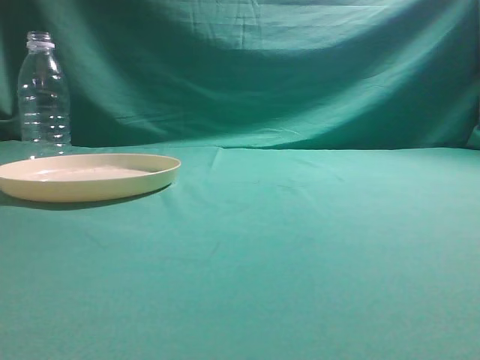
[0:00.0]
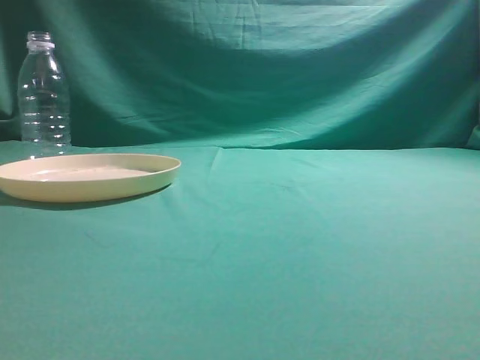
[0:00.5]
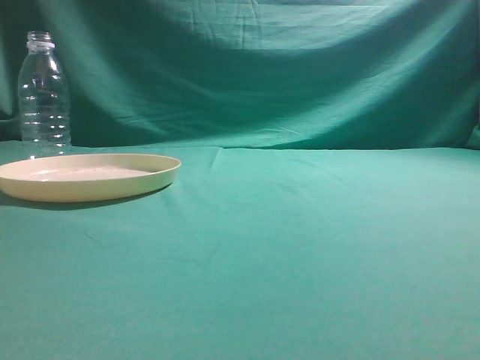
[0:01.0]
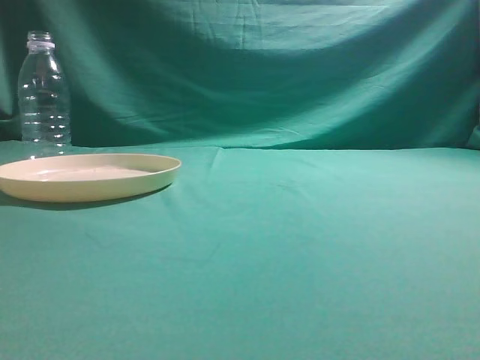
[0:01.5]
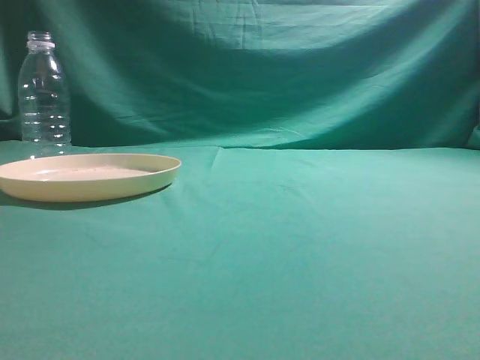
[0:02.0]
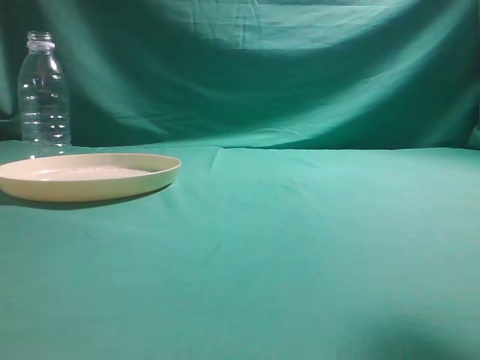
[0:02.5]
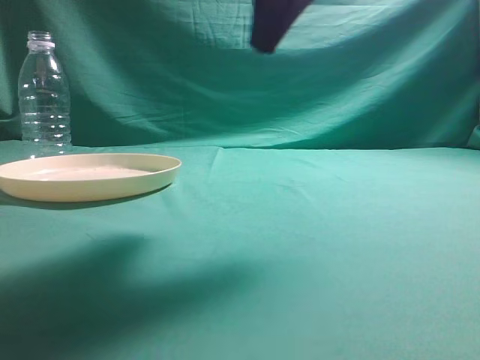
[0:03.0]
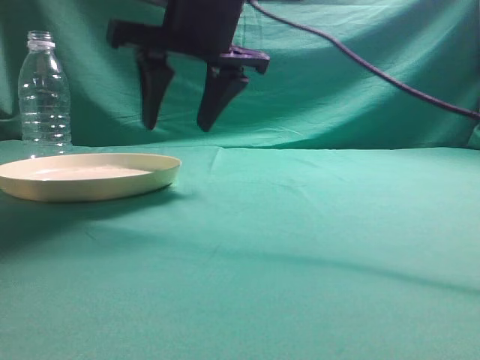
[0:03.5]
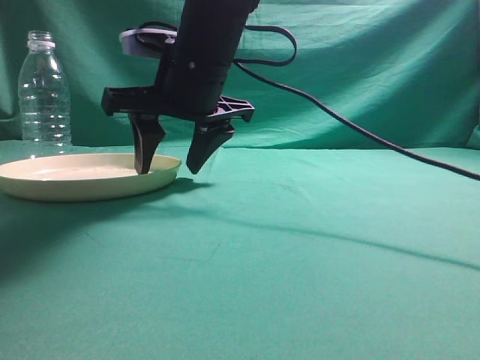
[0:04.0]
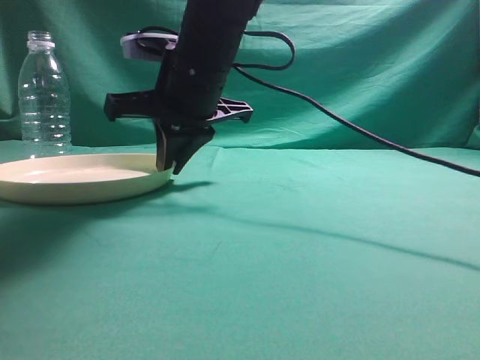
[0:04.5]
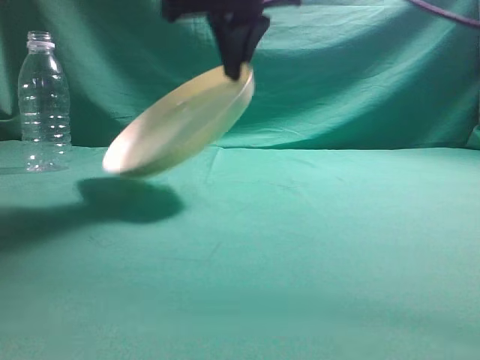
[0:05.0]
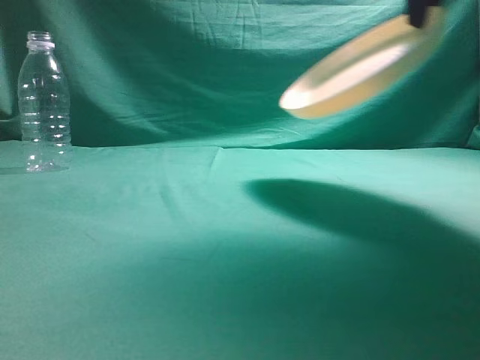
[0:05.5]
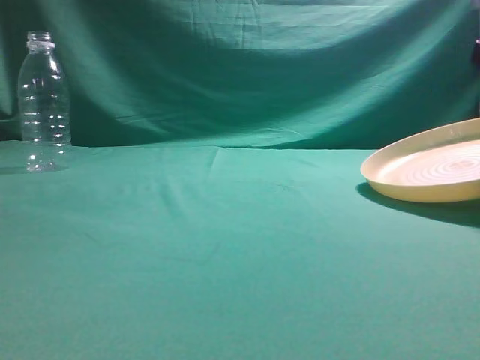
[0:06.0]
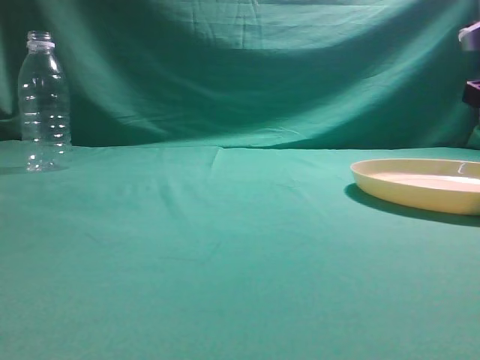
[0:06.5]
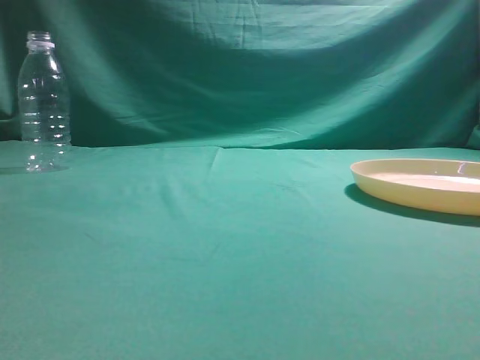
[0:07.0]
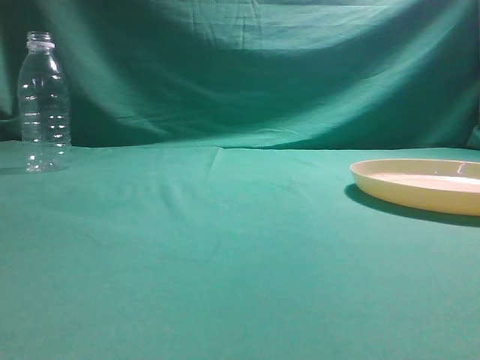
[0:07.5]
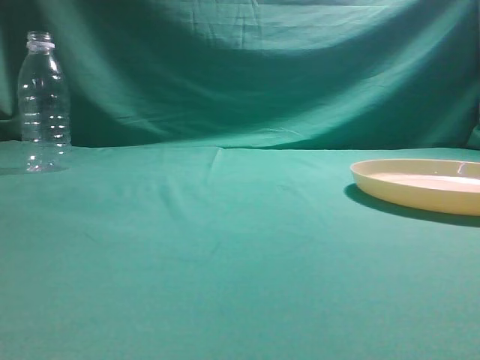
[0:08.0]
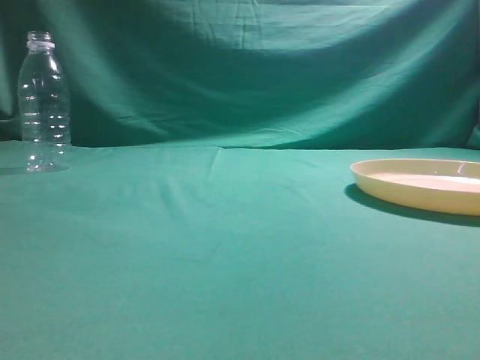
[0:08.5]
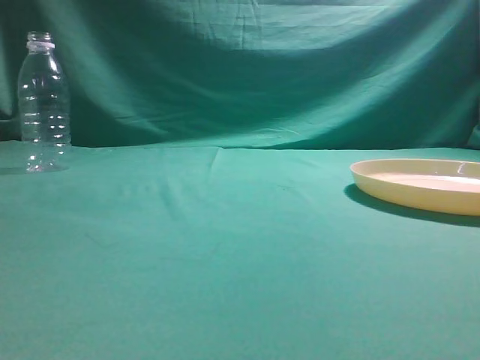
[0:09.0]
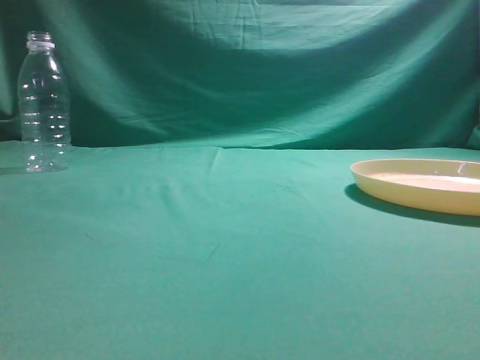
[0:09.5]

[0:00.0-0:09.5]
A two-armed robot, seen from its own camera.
Step, 0:00.0 to 0:05.0: Pick the container that can hold fruits.
Step, 0:05.5 to 0:06.5: Move the picked object to the right side of the table.
0:02.0 to 0:04.0: The right gripper is displaced to the left and forward by some 40 cm, and opens up.
0:04.0 to 0:05.5: The right gripper goes about 25 cm to the right and upward, and closes its fingers.
0:05.5 to 0:07.5: The right gripper heads backward and to the right, covering approximately 25 cm, and opens, then closes again.
